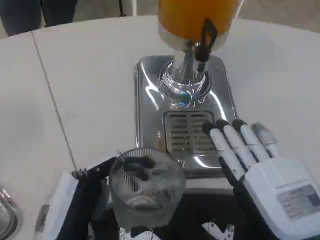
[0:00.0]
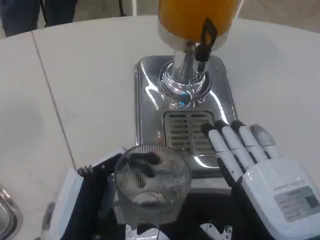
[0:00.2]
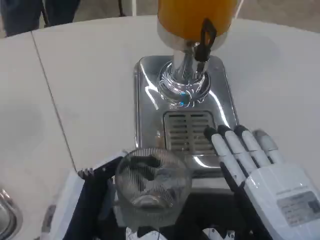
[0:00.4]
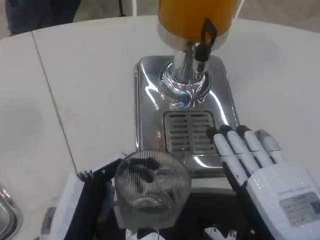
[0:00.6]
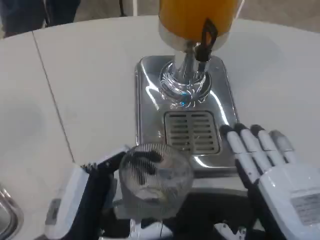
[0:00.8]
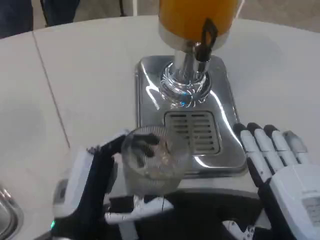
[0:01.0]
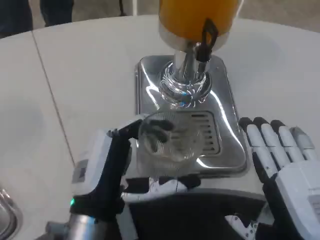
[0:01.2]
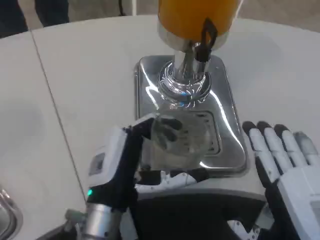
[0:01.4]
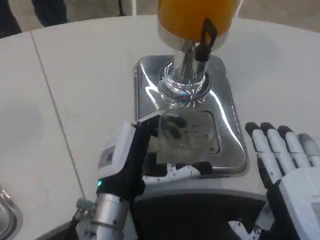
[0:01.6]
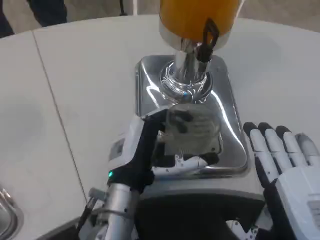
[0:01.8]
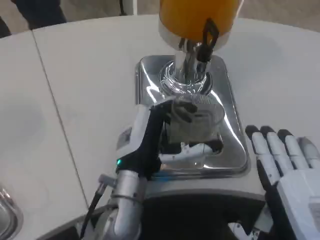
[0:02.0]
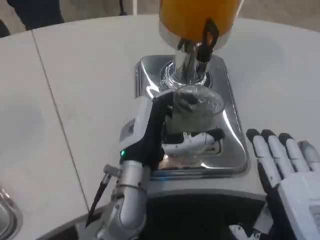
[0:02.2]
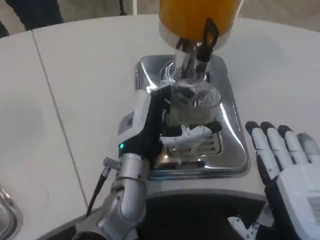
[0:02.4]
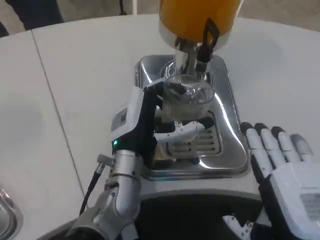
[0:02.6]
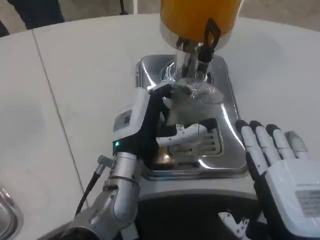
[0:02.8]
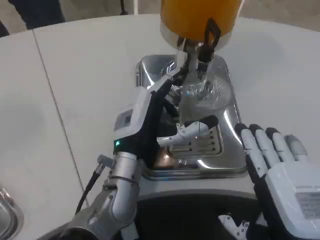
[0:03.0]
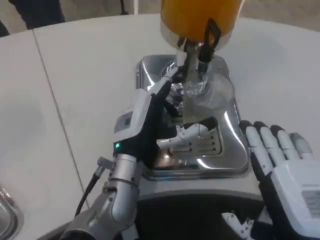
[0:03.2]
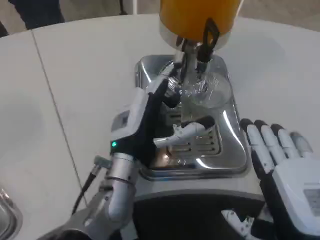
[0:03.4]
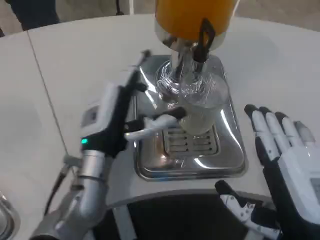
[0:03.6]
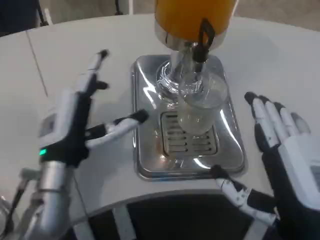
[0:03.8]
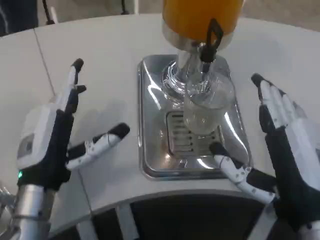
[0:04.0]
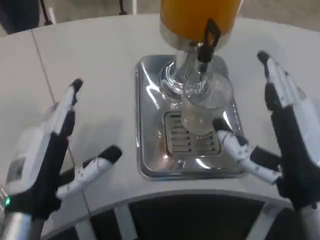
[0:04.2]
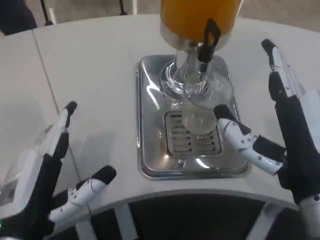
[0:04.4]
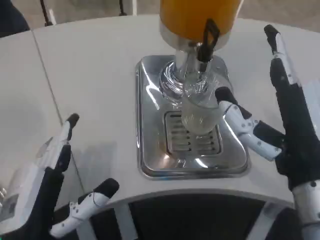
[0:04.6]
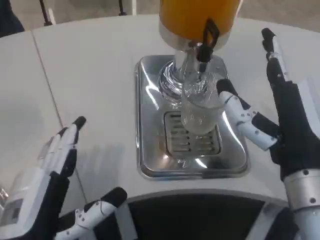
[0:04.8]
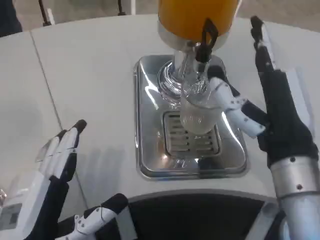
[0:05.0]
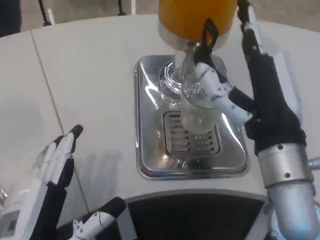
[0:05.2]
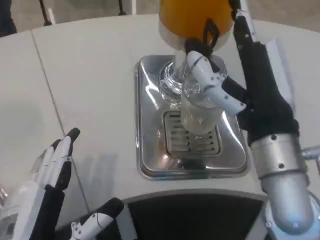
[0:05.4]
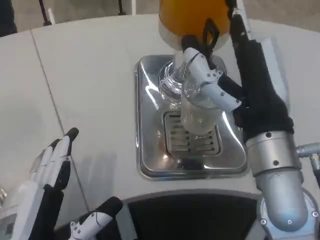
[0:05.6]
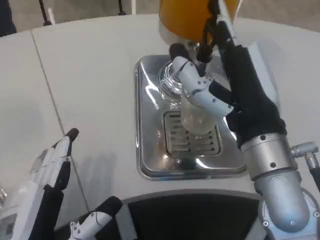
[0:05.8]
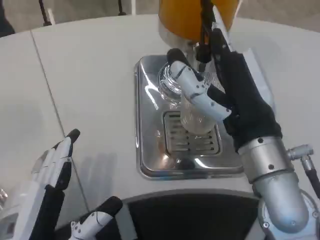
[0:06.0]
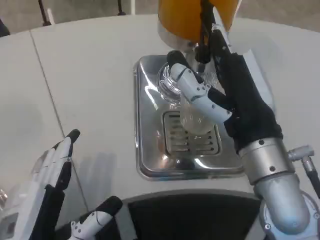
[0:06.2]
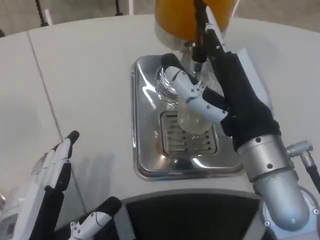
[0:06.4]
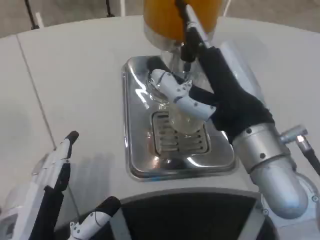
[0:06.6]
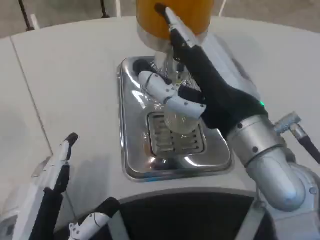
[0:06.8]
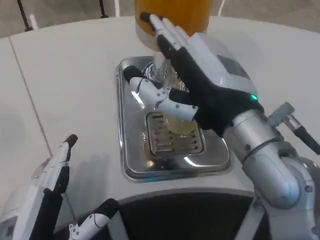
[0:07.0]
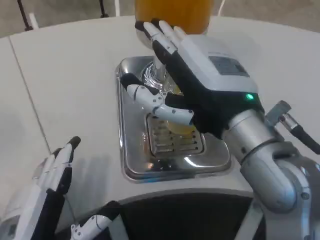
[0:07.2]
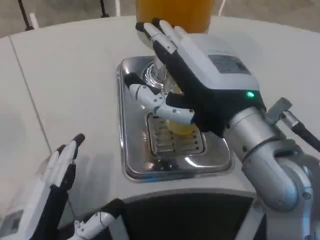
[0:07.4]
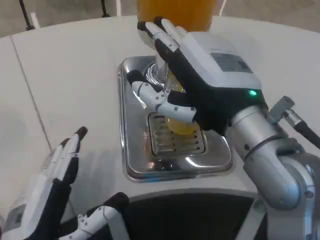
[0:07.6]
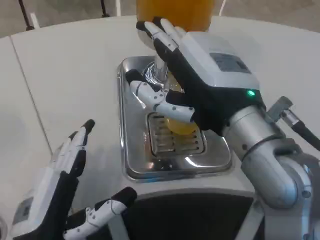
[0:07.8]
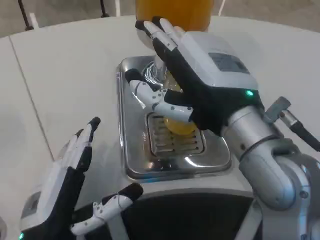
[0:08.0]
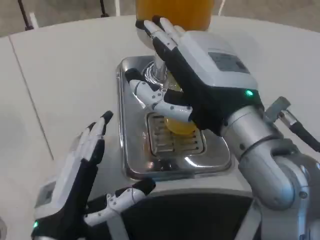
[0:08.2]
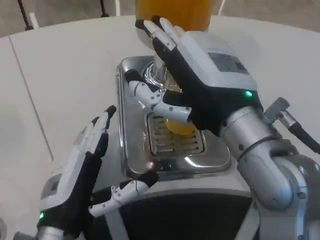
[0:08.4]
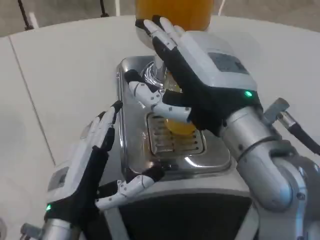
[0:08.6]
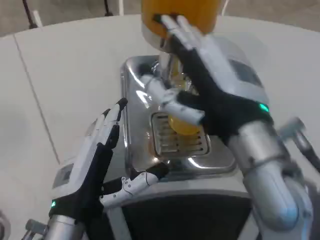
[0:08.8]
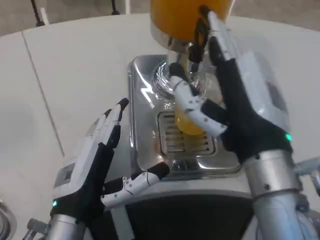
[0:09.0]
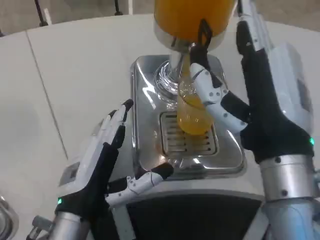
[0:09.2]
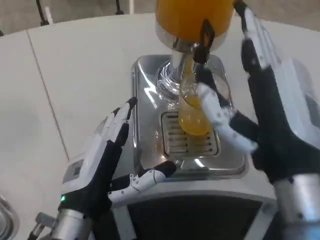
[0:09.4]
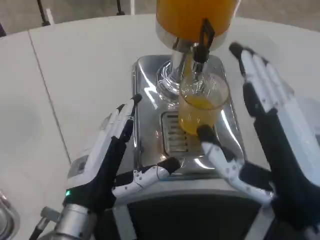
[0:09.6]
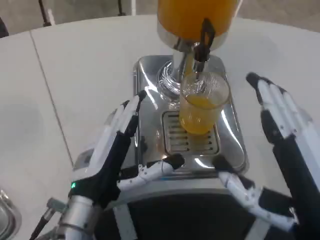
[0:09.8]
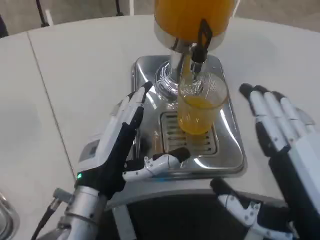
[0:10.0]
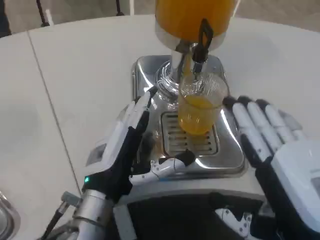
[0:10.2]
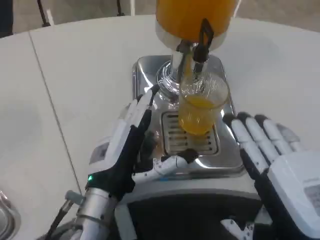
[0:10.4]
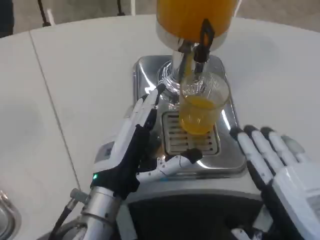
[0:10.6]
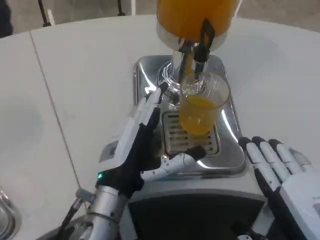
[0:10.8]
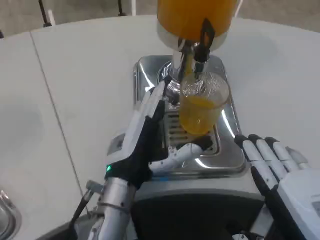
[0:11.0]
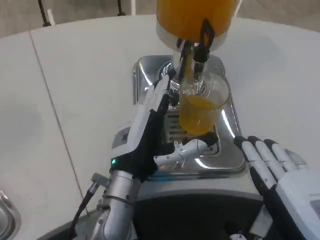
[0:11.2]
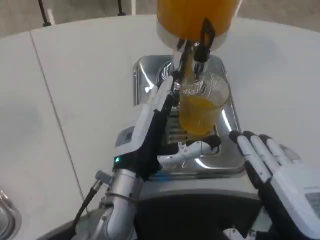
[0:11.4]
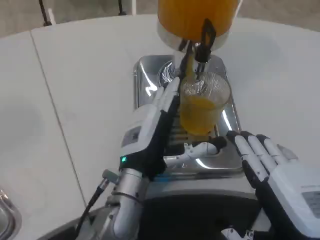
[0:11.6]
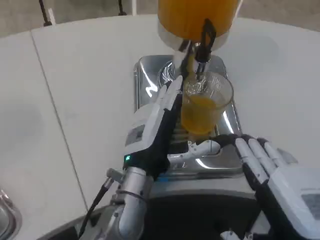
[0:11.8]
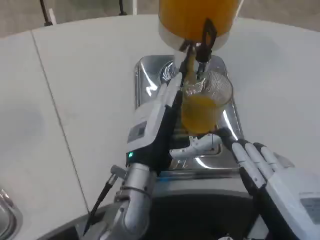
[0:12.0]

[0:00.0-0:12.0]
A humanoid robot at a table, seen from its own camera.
Task of the whole recording: Grasp the cup under the faucet to collect the drink, then remove the cup.
0:00.0 to 0:01.6: The left hand heads forward and to the right, covering about 15 cm.
0:01.6 to 0:03.0: The left hand is displaced forward by some 5 cm.
0:03.0 to 0:04.4: The left hand is displaced backward and to the left by approximately 20 cm. Meanwhile the right hand moves roughly 5 cm.
0:04.4 to 0:06.0: The right hand shifts about 5 cm forward.
0:06.0 to 0:07.6: The right hand moves upward, roughly 5 cm.
0:07.6 to 0:09.0: The left hand moves forward, approximately 5 cm. The right hand ends up some 5 cm from where it was.
0:09.0 to 0:10.4: The right hand moves backward and to the right, about 10 cm. The left hand changes place by roughly 5 cm.
0:10.4 to 0:12.0: The left hand moves to the right, approximately 5 cm.

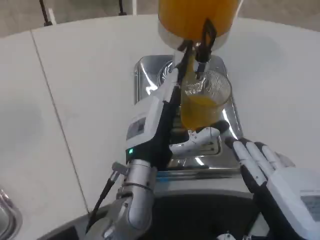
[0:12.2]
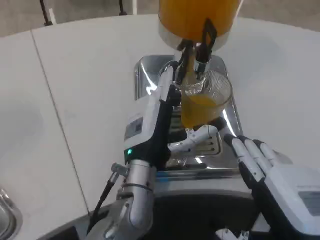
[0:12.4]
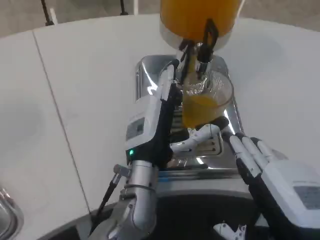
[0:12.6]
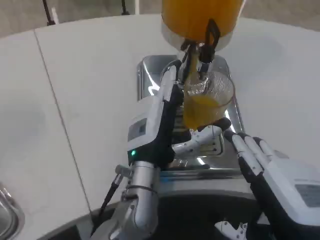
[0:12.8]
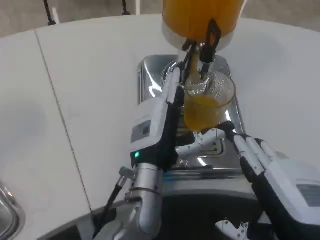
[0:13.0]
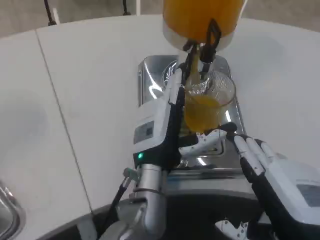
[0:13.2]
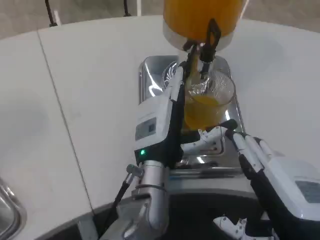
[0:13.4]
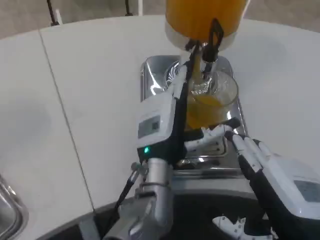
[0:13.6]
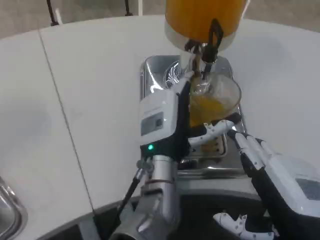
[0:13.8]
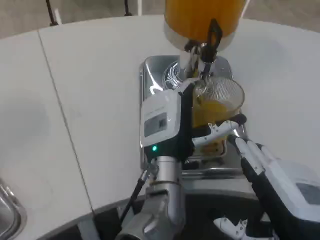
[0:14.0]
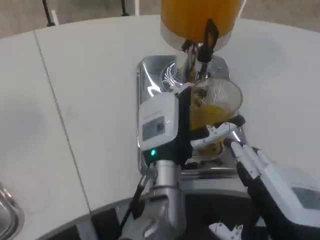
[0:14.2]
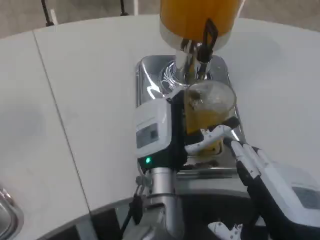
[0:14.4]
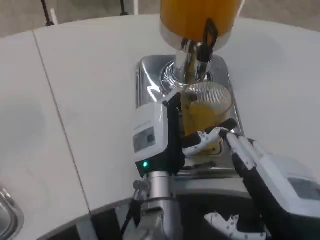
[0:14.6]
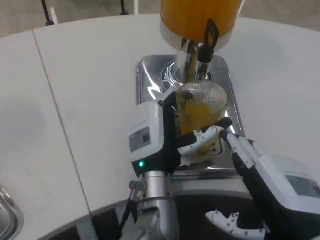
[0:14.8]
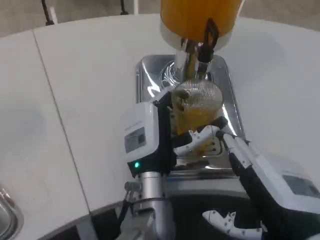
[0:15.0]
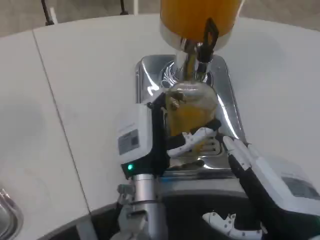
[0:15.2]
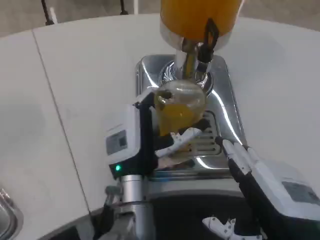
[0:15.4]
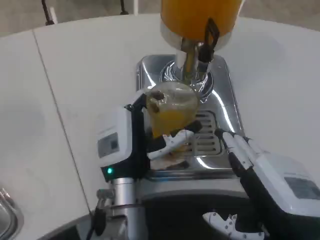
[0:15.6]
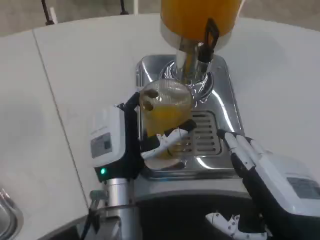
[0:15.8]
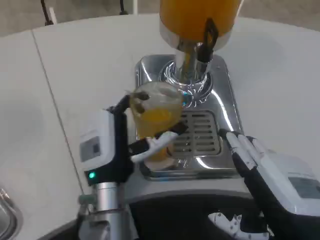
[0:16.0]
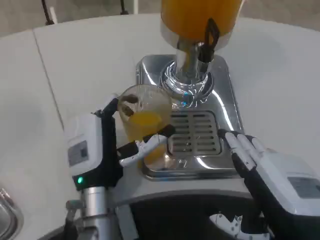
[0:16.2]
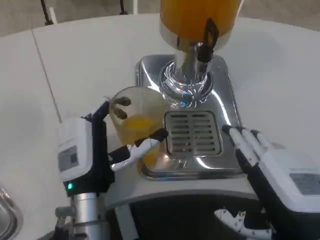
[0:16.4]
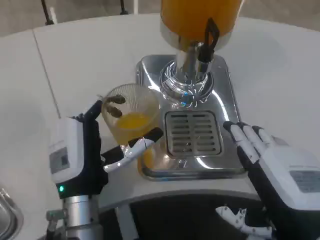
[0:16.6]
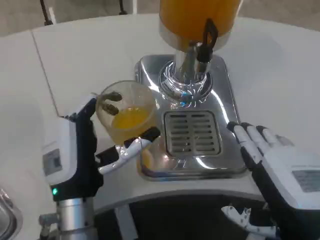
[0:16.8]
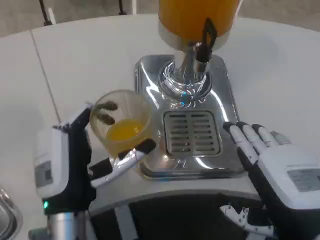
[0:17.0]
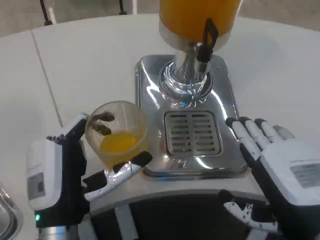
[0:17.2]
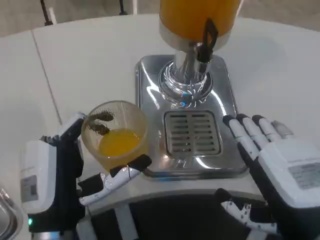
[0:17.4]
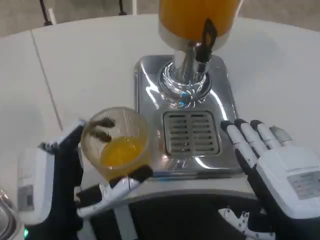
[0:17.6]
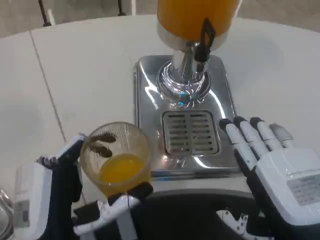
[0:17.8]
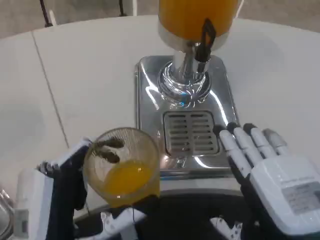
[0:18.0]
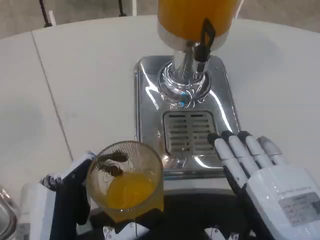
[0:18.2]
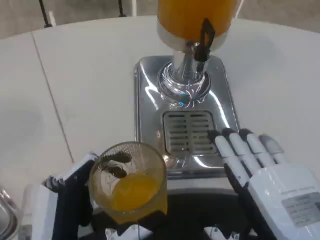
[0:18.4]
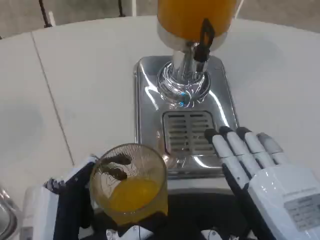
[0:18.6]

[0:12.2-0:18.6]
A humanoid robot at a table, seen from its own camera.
Task of the whole recording: Grasp the cup under the faucet to collect the drink, then remove the cup.
0:15.4 to 0:17.0: The left hand goes approximately 10 cm to the left and backward.
0:17.0 to 0:18.6: The left hand moves backward, about 10 cm.
